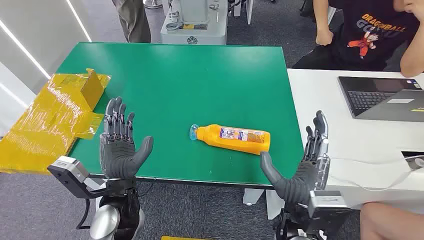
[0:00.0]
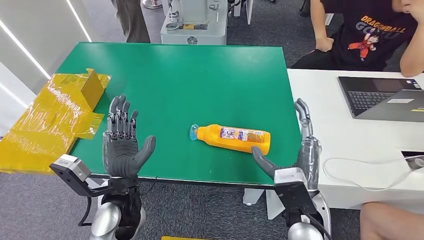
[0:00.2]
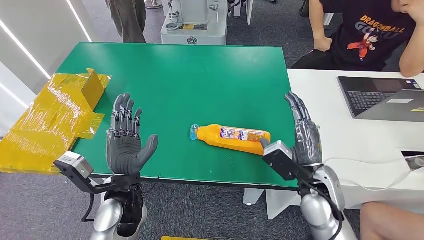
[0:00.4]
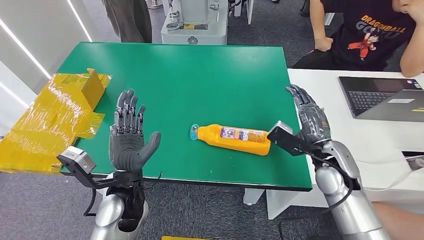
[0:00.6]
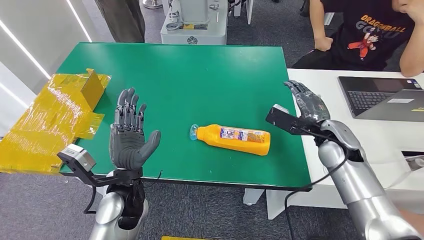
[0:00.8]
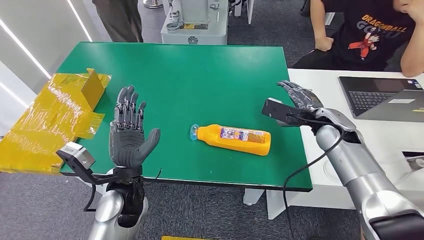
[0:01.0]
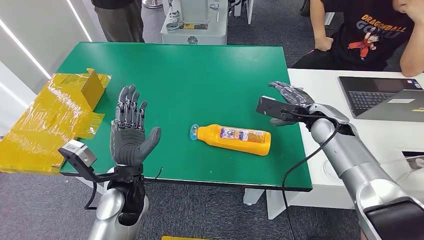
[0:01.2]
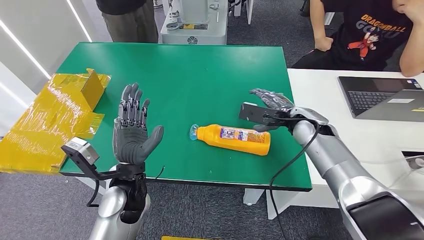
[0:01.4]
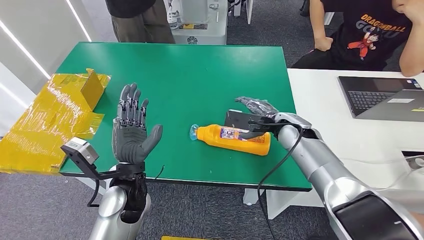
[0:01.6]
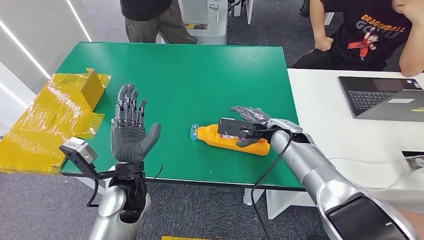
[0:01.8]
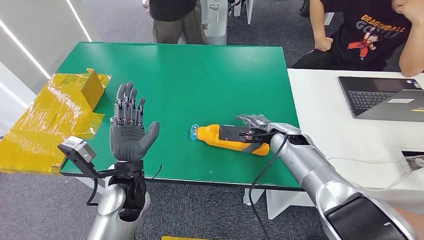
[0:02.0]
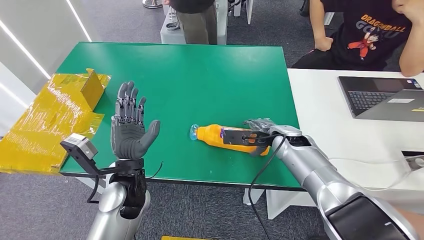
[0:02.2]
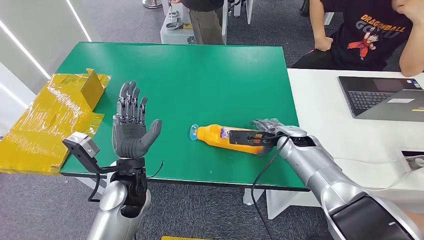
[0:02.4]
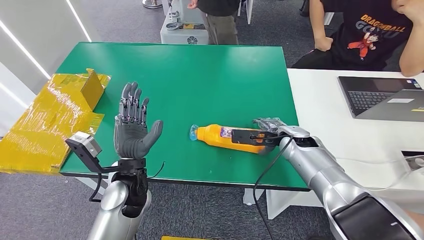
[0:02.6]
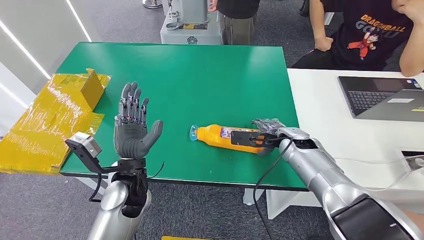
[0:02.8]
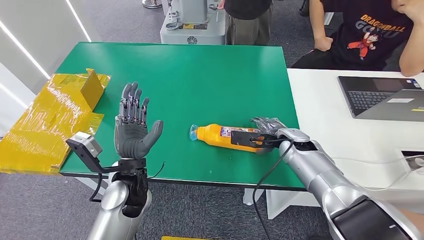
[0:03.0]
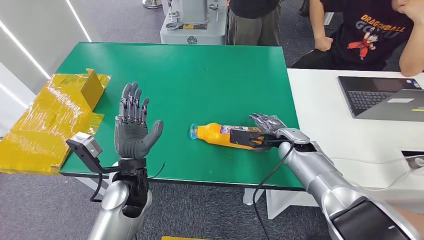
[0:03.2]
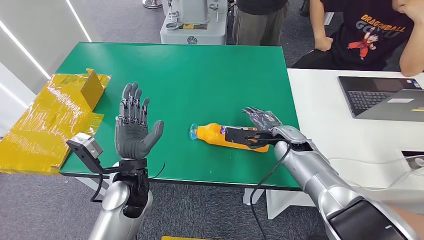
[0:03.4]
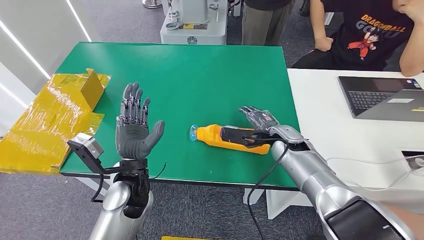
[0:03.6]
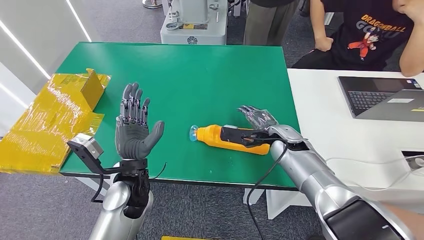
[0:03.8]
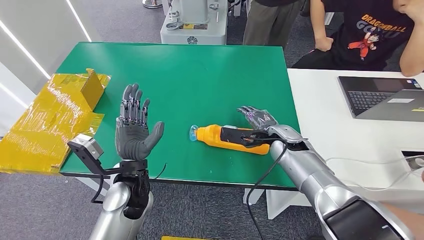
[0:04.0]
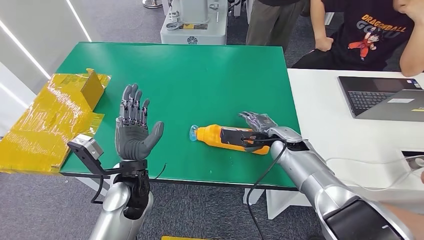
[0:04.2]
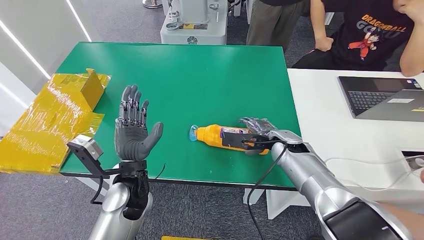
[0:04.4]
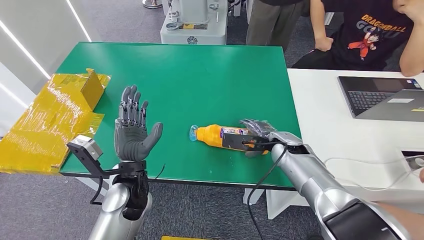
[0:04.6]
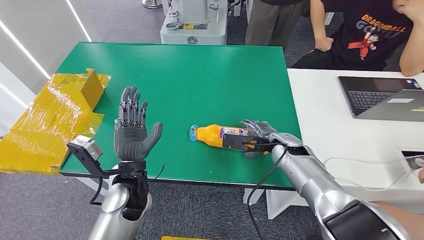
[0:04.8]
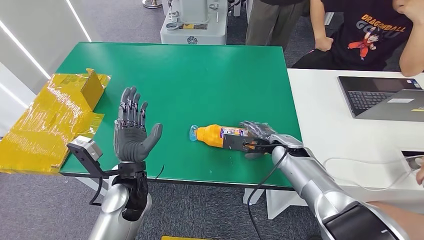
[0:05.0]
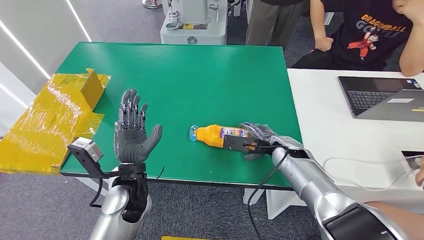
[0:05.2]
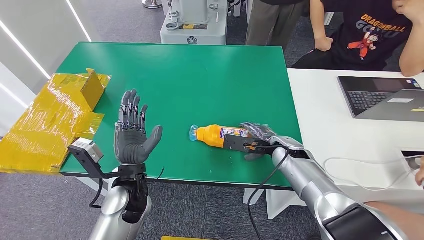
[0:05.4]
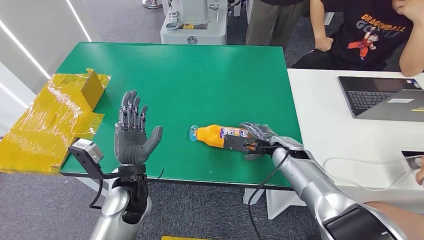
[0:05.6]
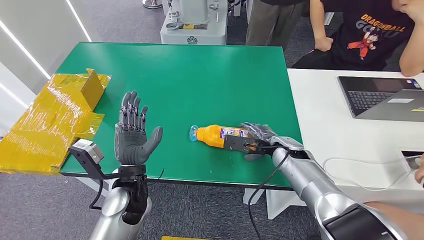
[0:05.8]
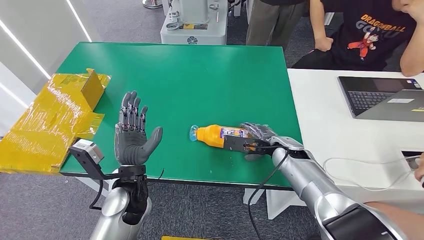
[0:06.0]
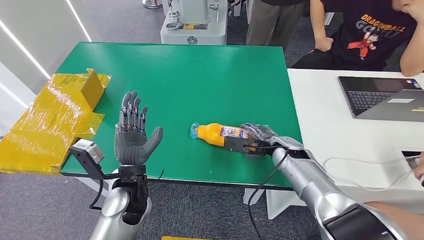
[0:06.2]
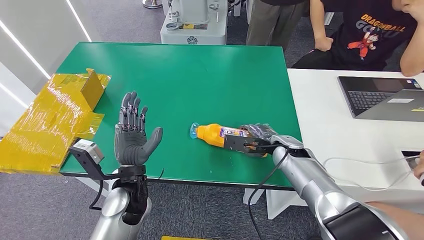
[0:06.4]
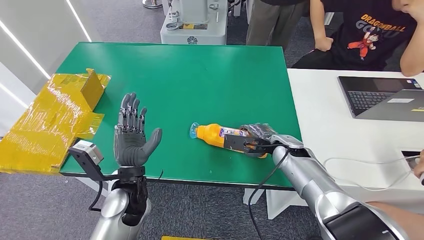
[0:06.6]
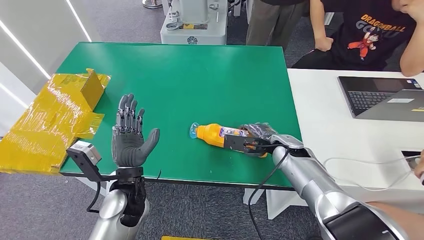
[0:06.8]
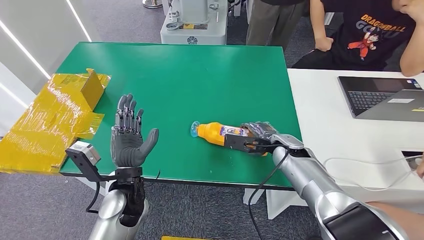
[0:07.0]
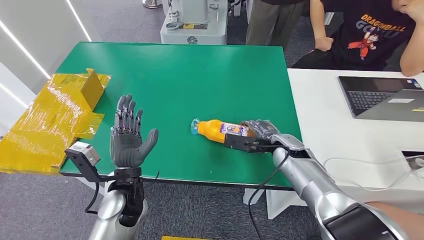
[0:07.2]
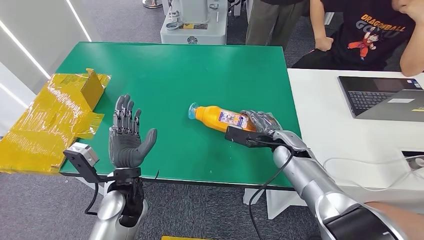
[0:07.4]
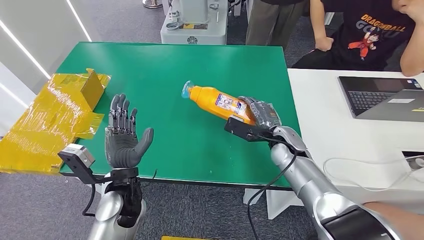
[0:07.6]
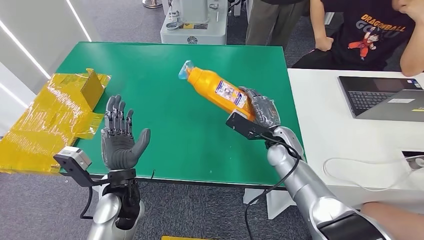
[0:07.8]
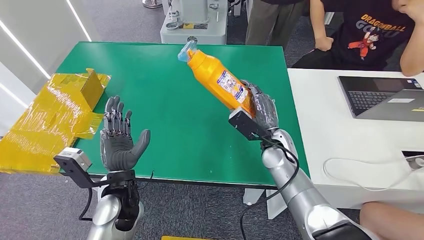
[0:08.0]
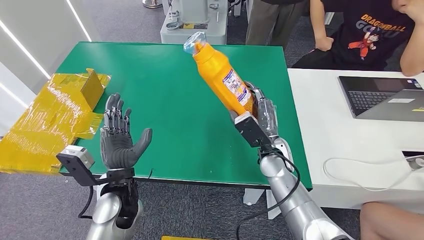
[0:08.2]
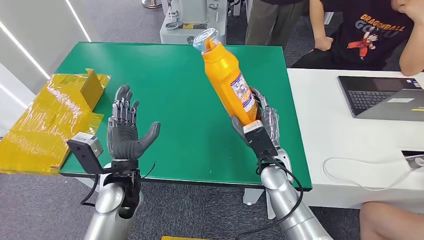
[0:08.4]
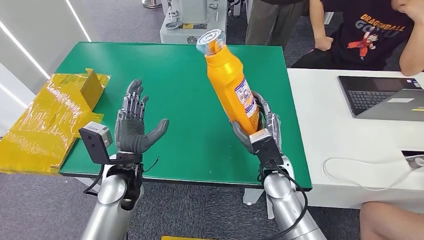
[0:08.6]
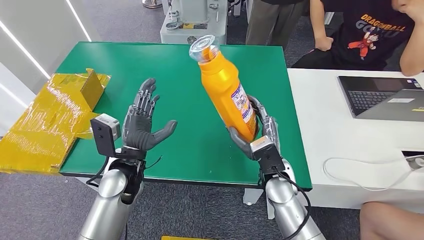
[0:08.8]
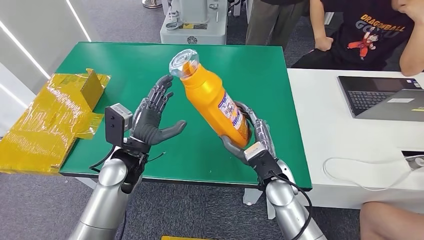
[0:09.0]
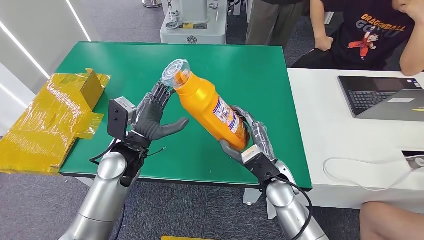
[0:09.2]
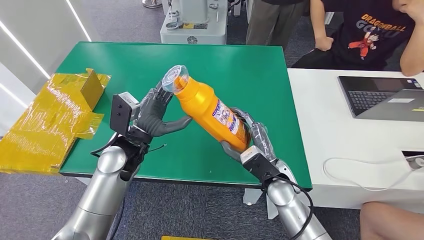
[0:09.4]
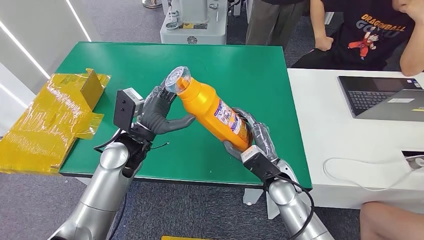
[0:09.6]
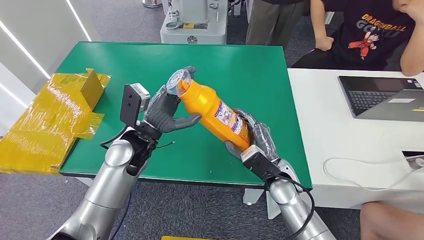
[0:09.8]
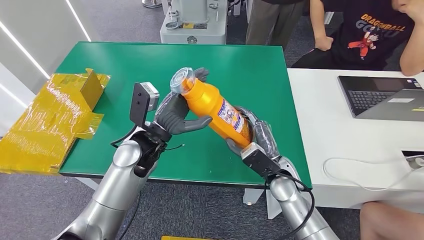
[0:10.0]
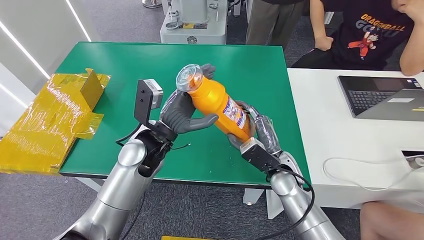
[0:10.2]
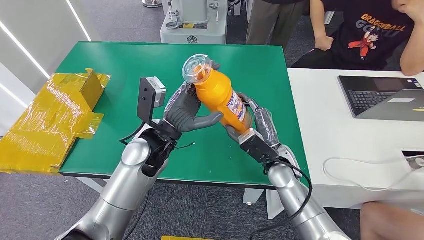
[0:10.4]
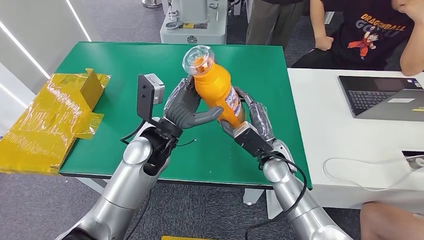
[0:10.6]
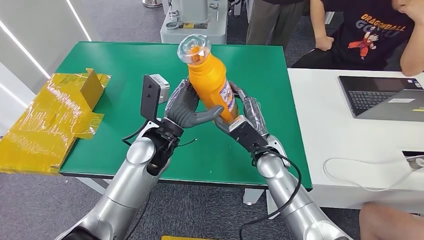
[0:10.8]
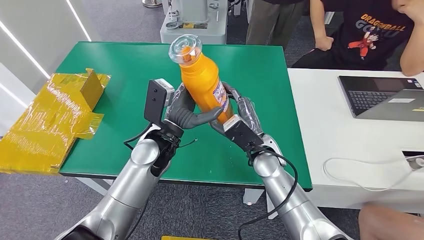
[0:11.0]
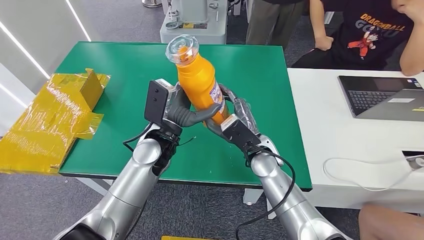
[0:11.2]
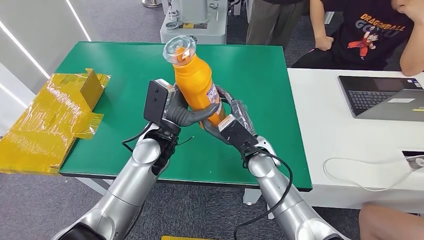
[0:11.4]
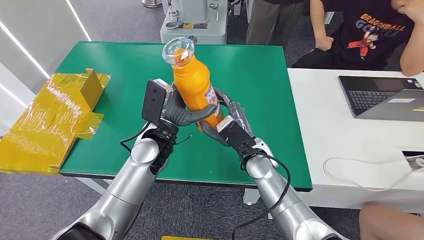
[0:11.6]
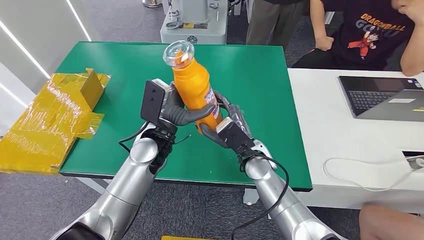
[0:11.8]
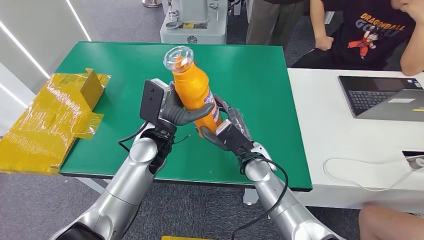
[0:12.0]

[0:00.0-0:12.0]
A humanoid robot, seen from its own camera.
Step, 0:00.0 to 0:08.4: Pick up the bottle from the table.
0:03.0 to 0:06.0: The hands move only a little.
0:07.6 to 0:09.0: The left hand shifts roughly 5 cm forward; the right hand is displaced backward and to the left by roughly 10 cm.
0:09.0 to 0:10.4: The left hand is displaced to the right by roughly 5 cm.
0:10.4 to 0:12.0: The right hand shifts about 5 cm to the left.

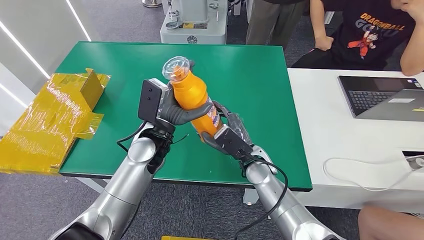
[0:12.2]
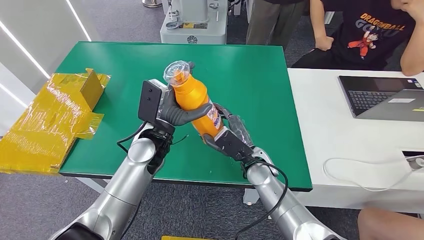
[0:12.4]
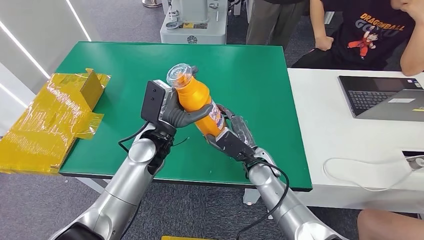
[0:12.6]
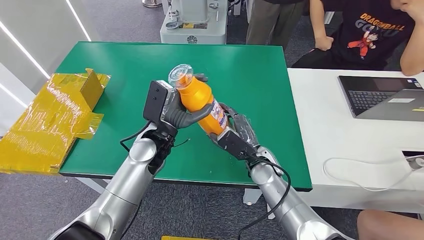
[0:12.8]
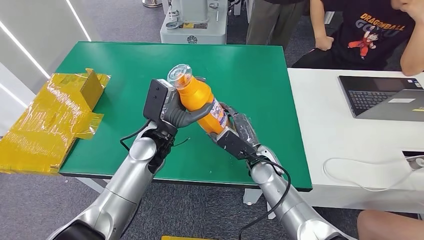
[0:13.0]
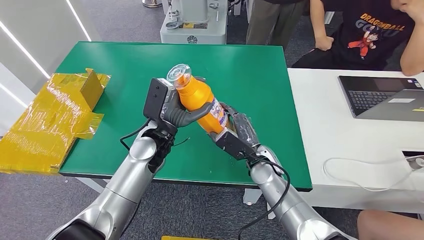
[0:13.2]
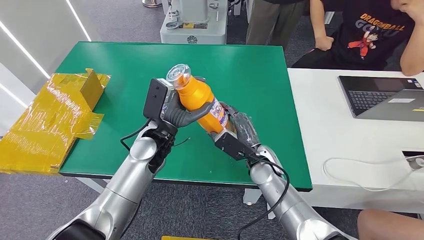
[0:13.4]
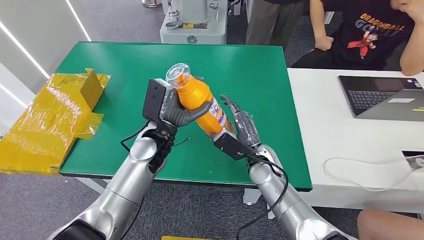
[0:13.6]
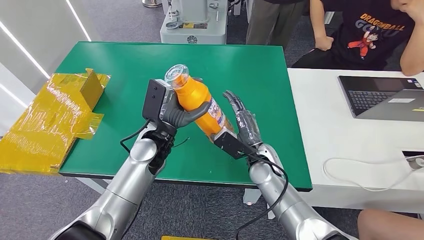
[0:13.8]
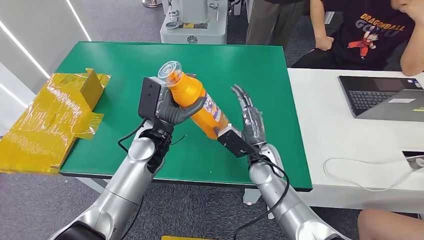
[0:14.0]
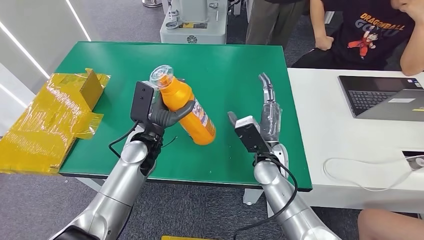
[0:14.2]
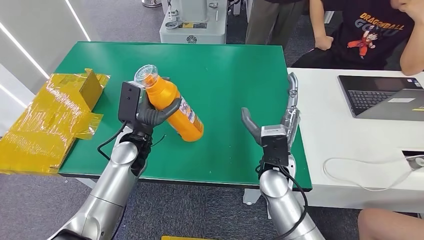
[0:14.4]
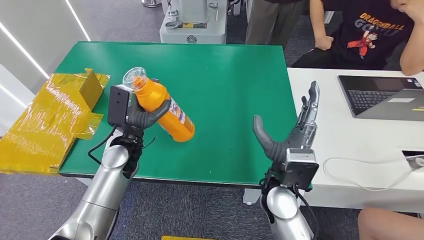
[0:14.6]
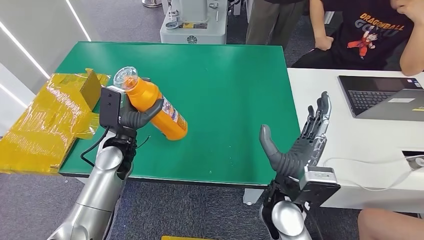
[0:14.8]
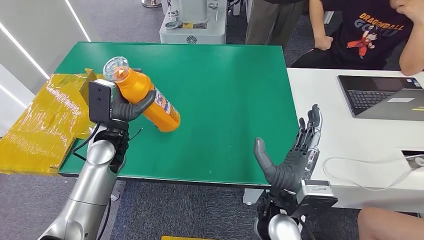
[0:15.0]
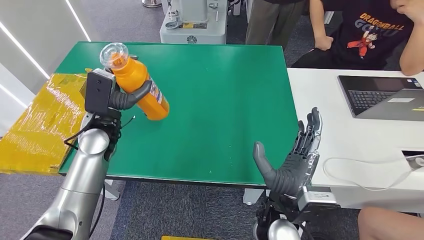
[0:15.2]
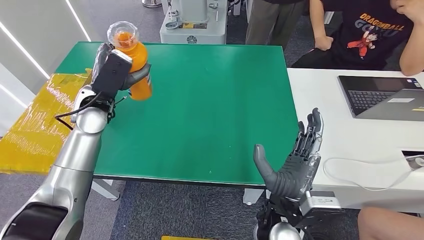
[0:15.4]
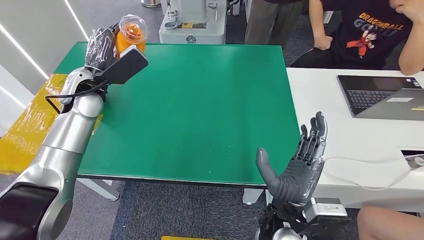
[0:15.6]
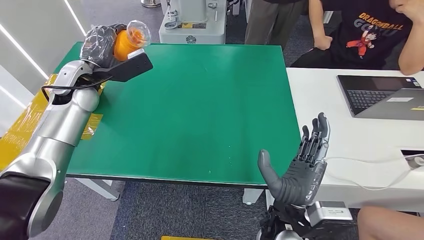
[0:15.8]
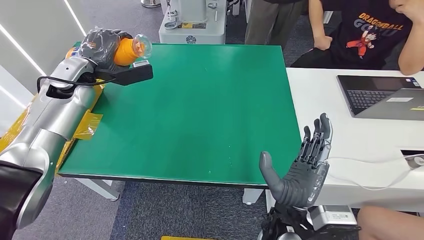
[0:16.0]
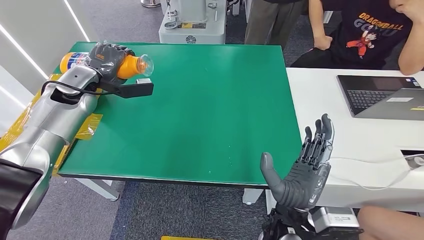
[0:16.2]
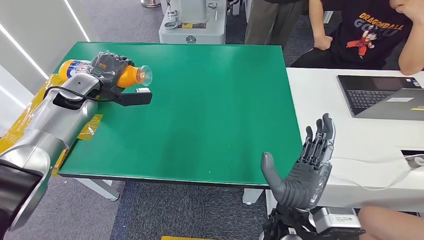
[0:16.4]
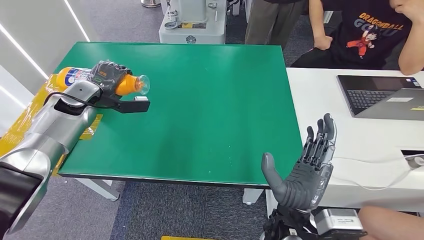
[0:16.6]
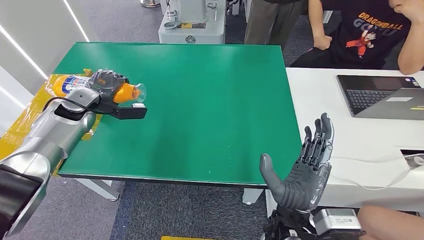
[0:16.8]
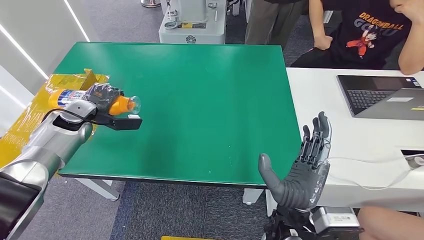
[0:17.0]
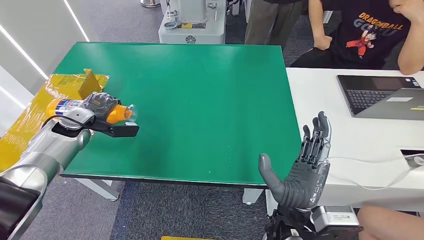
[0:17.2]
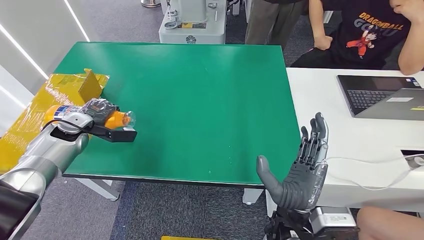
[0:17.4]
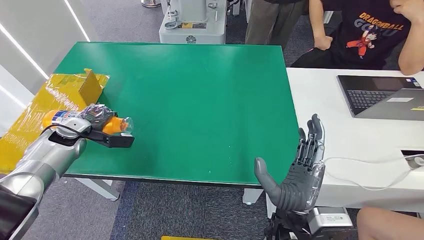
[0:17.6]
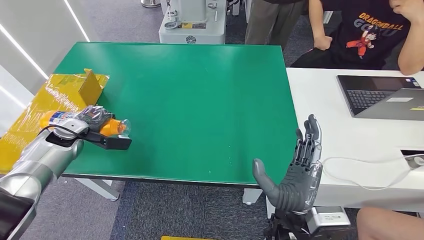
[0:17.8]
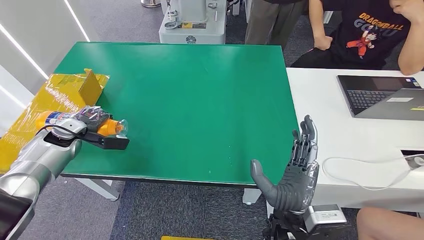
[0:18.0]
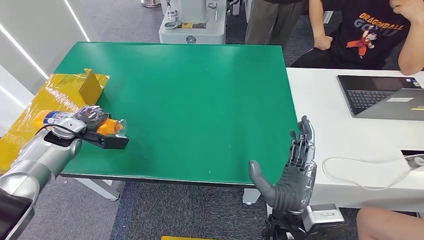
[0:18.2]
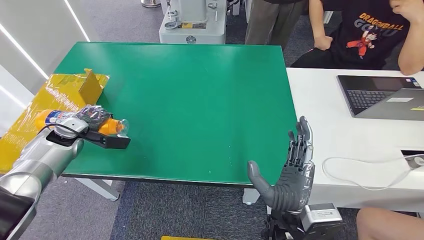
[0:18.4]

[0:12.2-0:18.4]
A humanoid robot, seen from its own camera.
0:12.2 to 0:13.8: There are only small adjustments of the hands.
0:16.8 to 0:18.4: The left hand travels downward, to the left and backward by approximately 10 cm.
